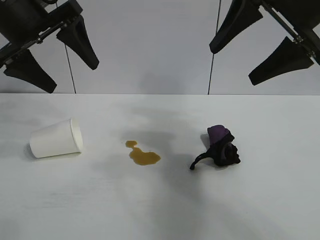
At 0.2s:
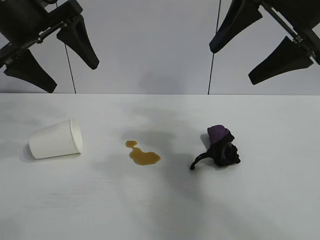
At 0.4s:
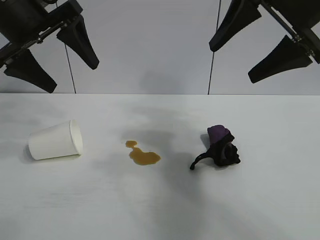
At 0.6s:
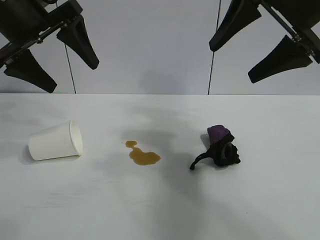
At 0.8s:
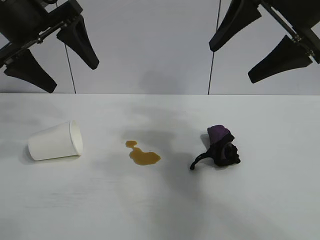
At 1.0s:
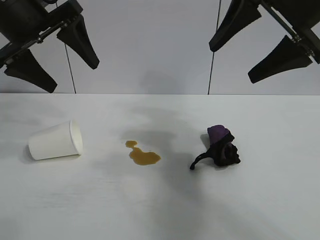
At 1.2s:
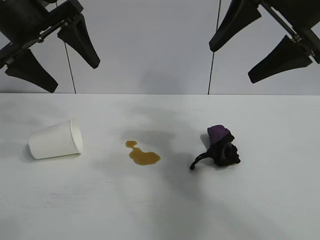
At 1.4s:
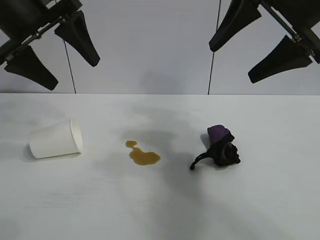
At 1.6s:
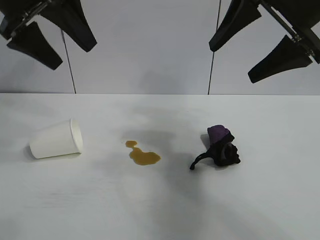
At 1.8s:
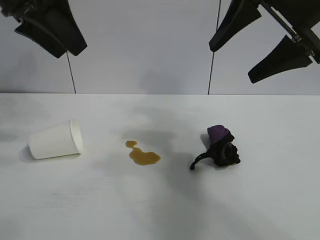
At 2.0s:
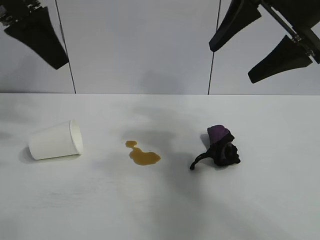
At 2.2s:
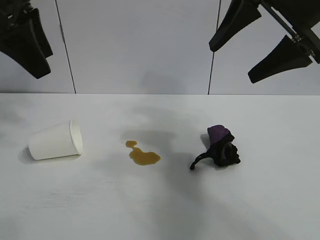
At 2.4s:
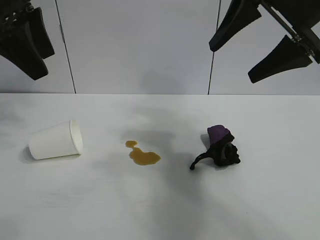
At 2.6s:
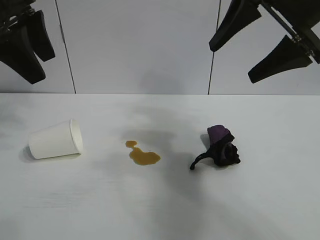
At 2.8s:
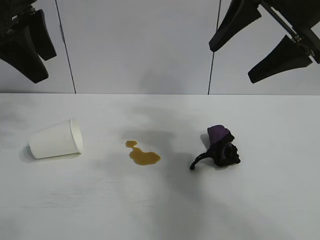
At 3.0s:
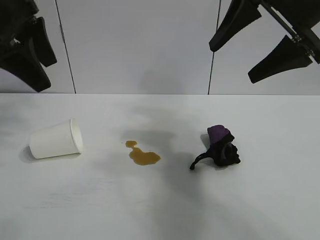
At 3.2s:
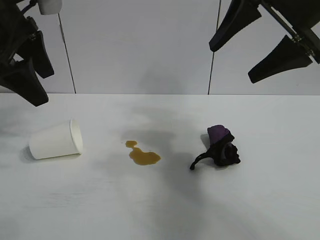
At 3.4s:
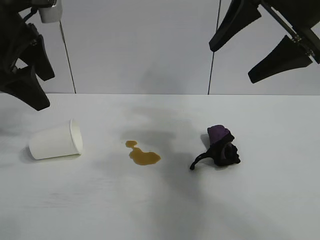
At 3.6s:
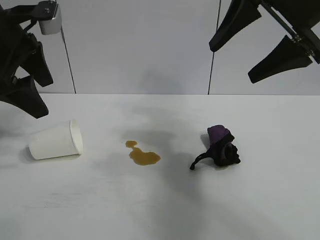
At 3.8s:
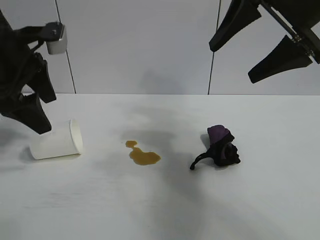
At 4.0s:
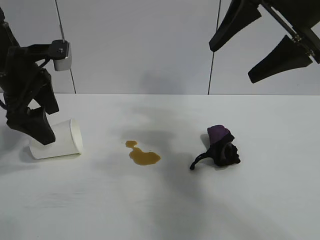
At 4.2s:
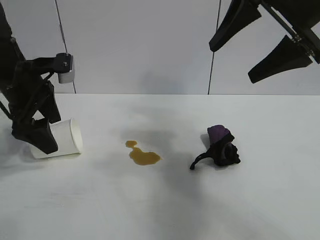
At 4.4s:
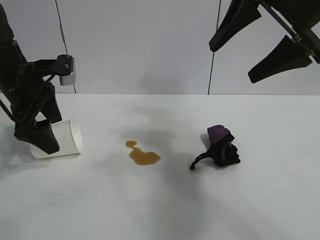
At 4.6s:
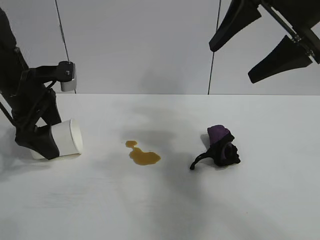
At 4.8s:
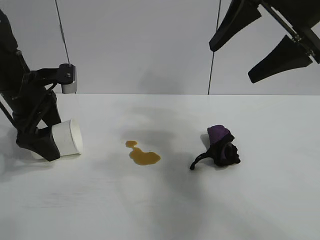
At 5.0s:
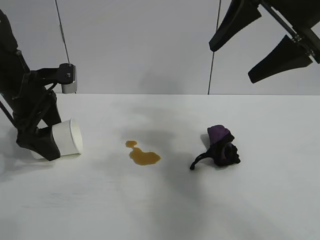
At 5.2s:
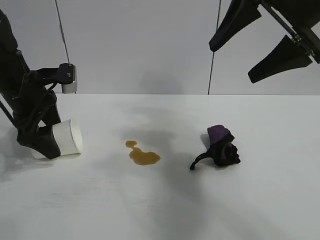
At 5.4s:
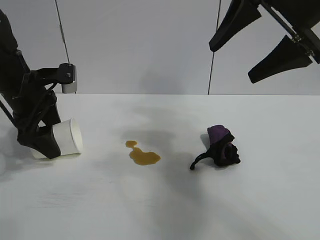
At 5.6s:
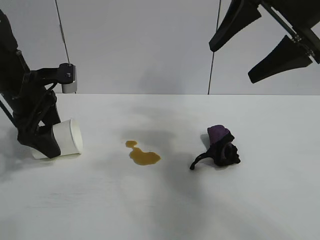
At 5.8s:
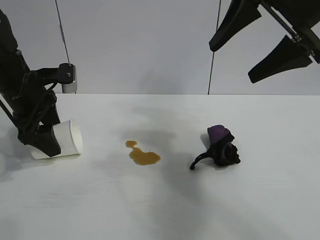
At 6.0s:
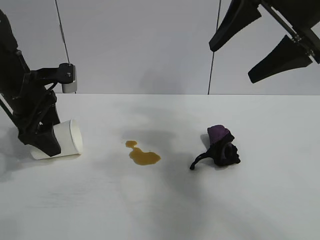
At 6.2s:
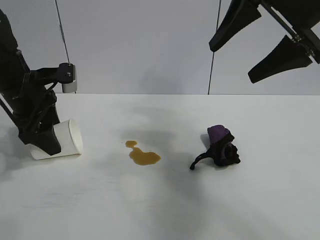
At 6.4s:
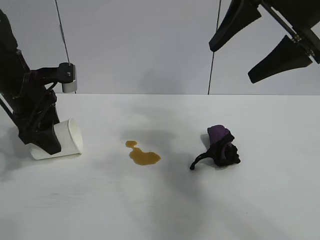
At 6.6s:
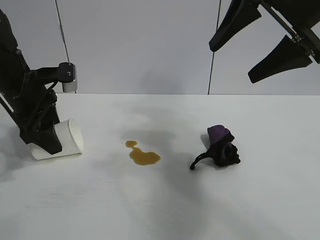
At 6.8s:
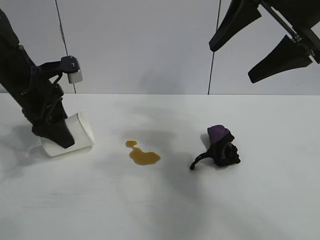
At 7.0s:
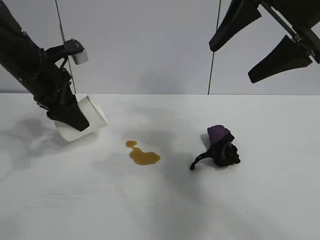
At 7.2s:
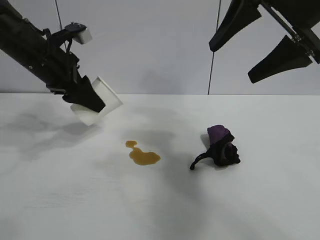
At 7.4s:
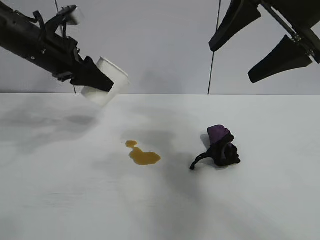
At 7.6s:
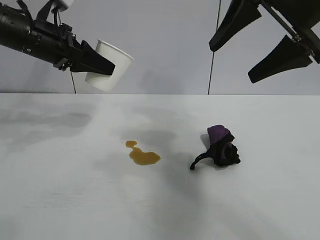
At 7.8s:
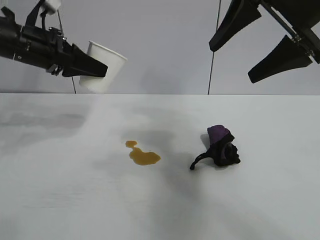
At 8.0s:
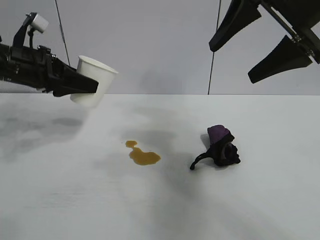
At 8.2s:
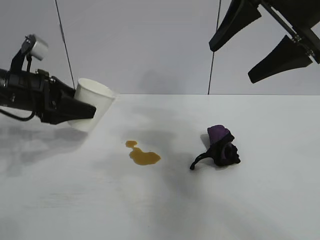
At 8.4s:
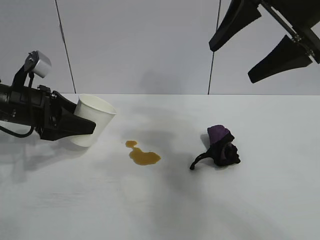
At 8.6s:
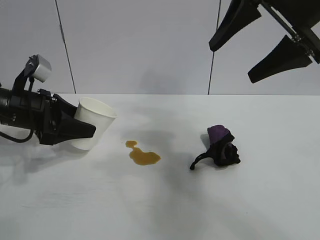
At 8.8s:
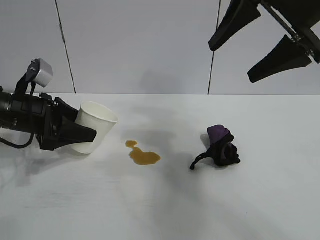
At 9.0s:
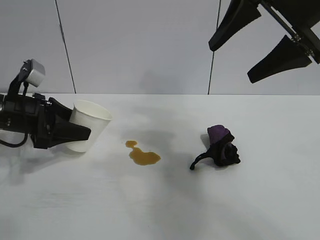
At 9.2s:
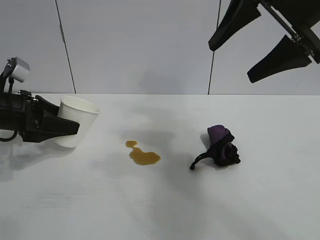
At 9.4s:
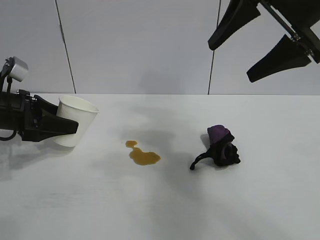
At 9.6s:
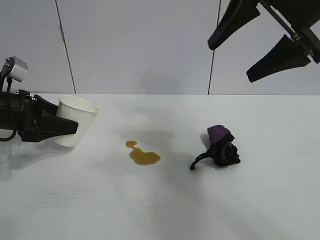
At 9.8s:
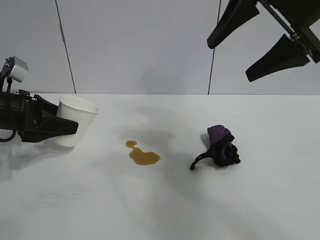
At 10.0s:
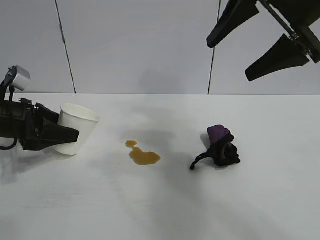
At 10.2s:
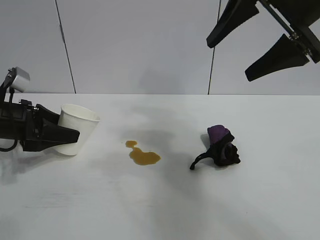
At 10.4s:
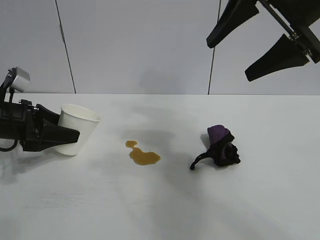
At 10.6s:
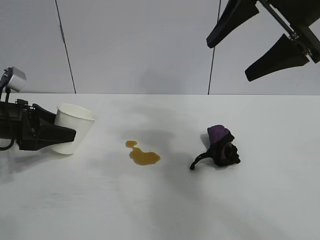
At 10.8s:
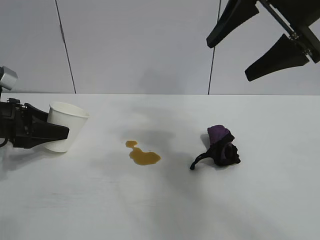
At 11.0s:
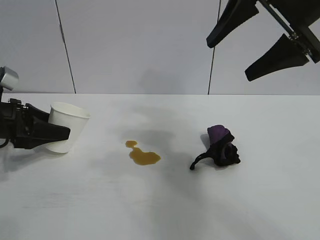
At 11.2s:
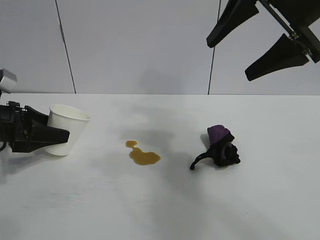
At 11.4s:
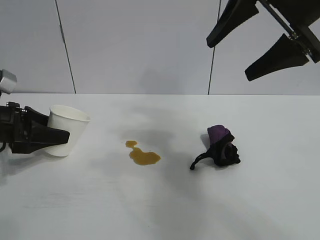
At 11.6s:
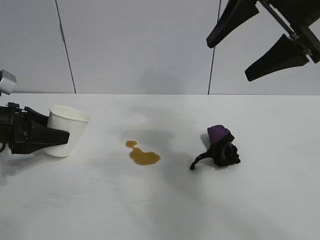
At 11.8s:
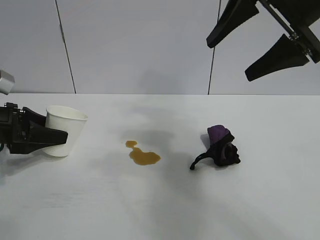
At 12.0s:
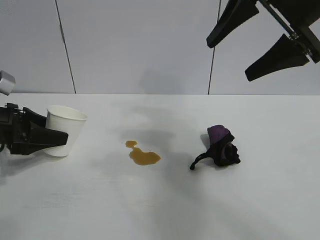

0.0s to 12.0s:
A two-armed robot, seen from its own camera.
Task of the whole recording: the left gripper pick up the fallen cup and place it upright, the right gripper grasp the black rag and wipe the stain on the table, the right gripper put the black rag back in its original position.
Step, 1.0s to 6.4s: Grasp the paper cup with left gripper.

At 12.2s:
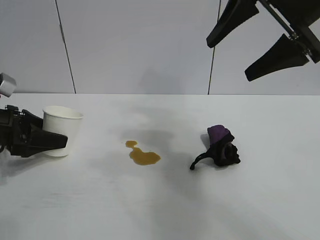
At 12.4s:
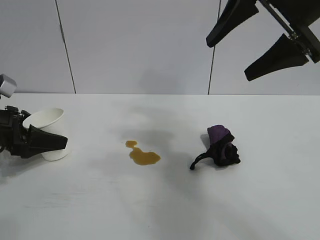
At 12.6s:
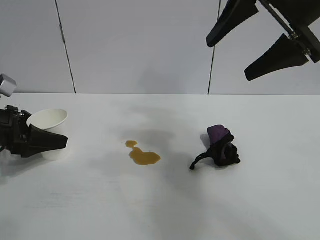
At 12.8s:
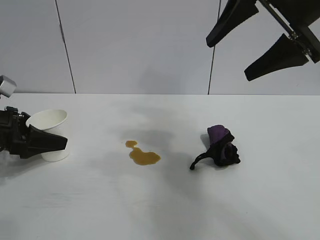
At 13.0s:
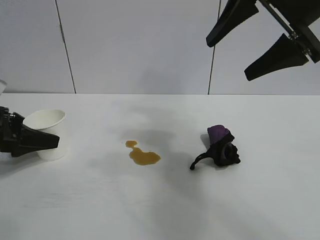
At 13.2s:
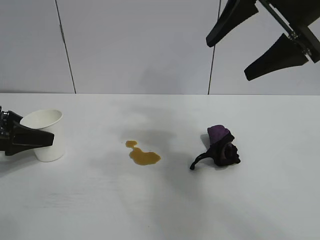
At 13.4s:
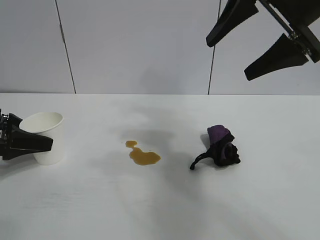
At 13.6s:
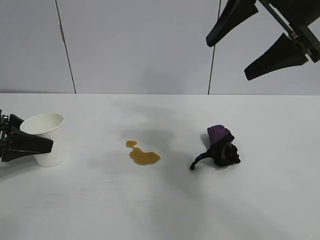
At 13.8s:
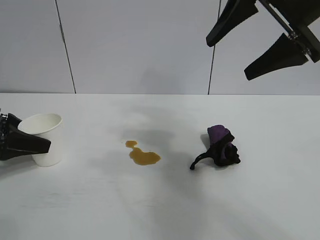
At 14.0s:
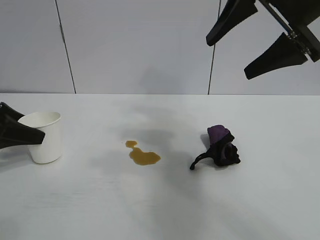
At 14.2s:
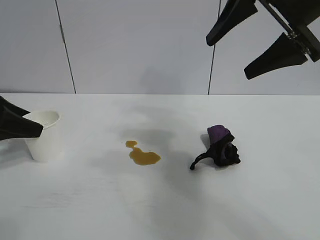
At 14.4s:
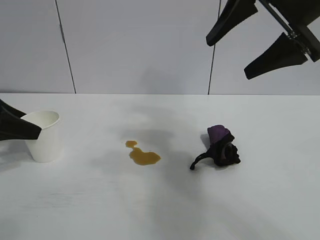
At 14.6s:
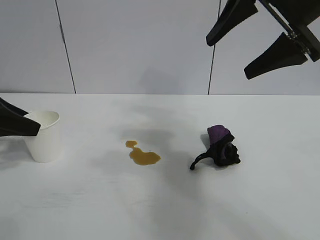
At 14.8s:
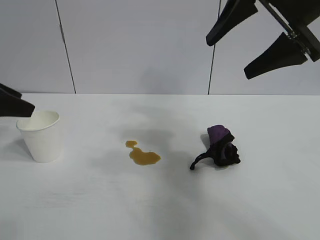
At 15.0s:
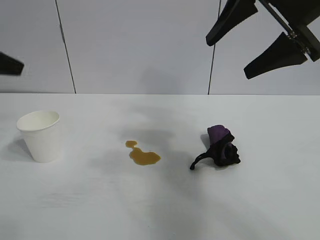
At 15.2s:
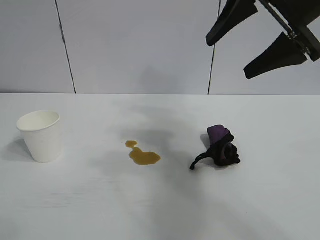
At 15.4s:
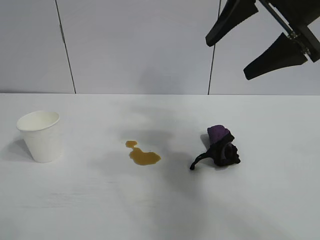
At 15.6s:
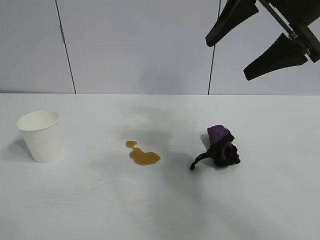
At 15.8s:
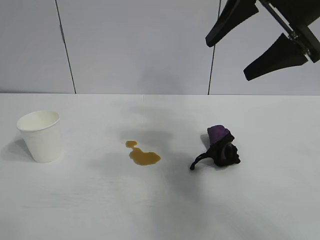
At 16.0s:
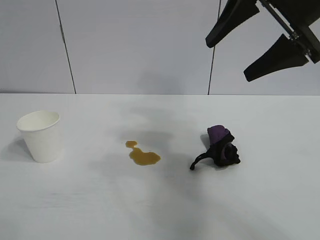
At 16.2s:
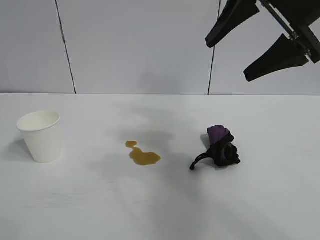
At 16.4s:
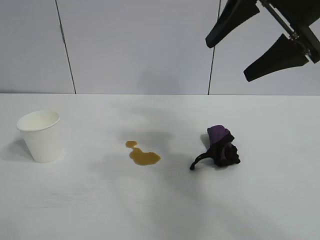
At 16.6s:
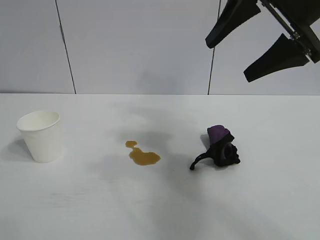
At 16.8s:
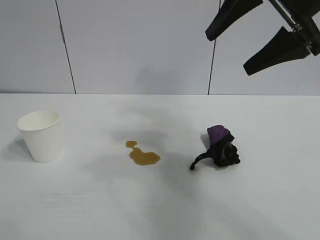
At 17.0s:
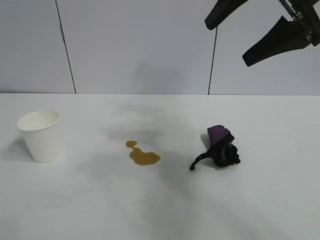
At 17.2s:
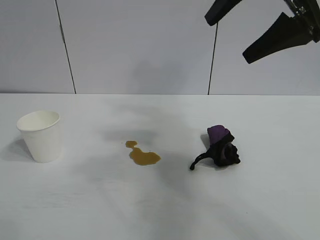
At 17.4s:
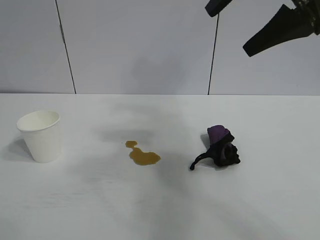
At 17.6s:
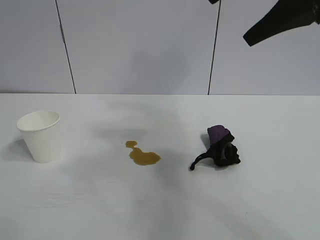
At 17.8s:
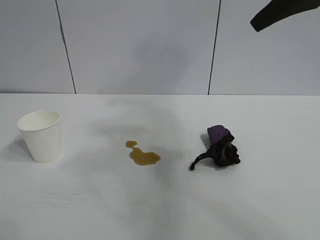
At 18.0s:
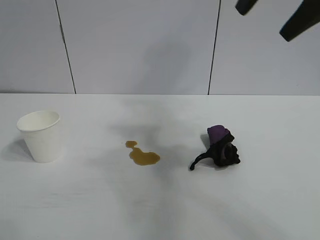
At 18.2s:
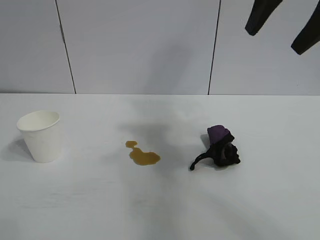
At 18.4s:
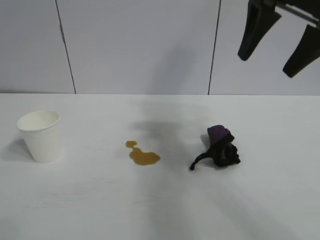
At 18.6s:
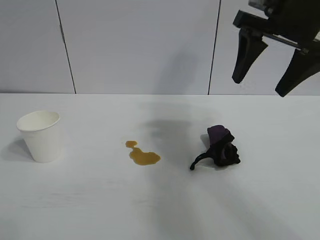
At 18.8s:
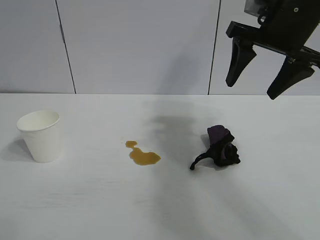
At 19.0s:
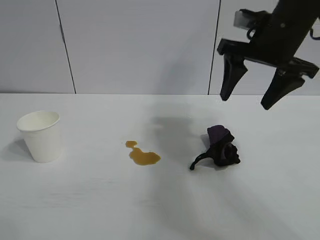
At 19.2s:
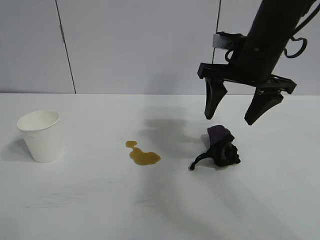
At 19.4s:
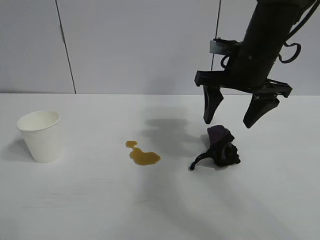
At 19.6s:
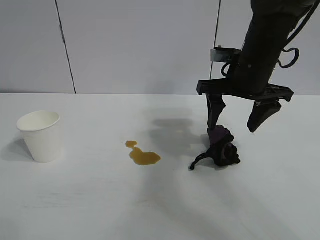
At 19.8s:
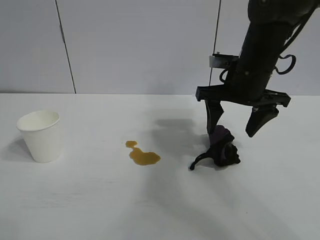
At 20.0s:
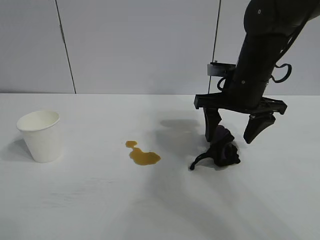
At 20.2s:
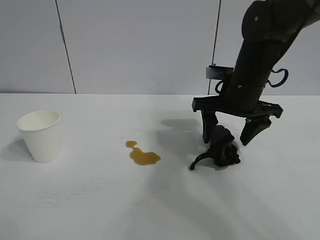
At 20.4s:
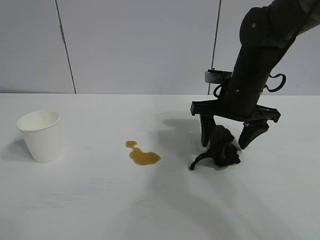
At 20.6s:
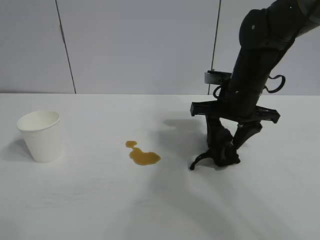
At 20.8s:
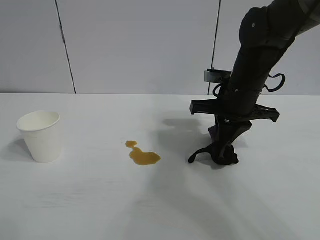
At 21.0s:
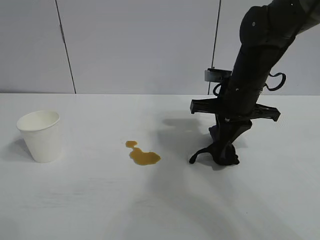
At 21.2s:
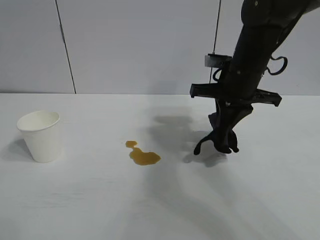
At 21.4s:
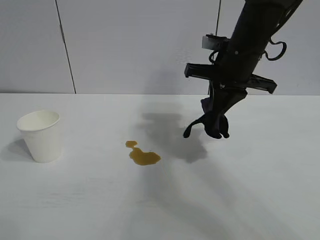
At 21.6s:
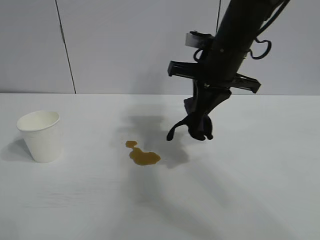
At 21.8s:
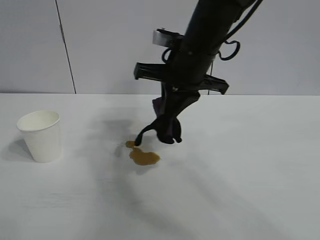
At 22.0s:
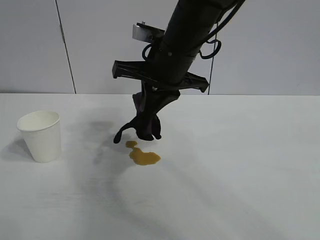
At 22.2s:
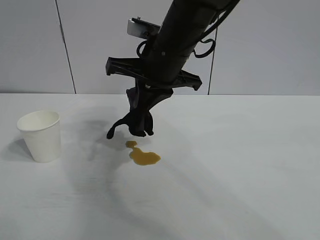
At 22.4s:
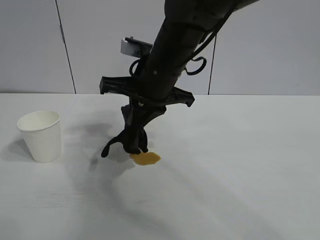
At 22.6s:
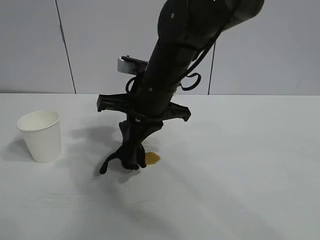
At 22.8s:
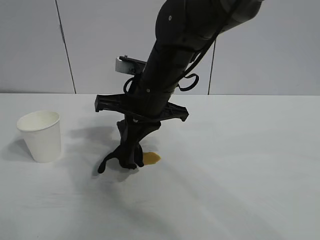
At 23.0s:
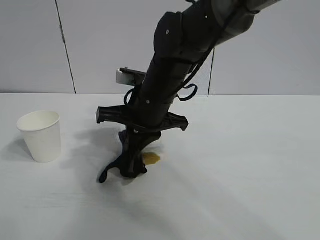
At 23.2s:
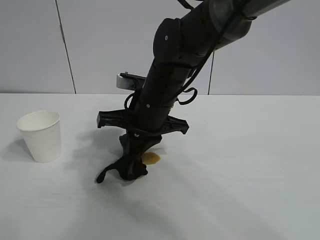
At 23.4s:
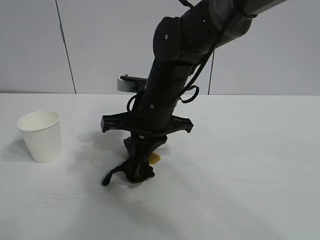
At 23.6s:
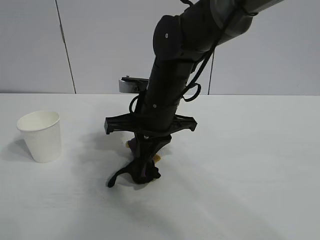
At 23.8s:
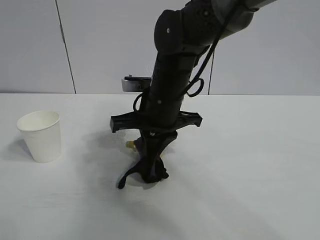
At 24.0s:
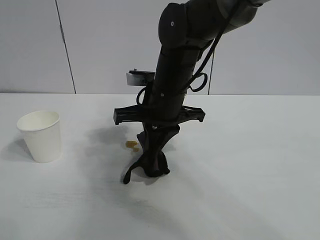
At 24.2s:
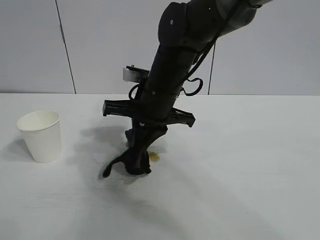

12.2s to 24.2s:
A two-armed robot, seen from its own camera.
Task of the whole recording: the left gripper pick up the fallen cup and place it upright, the right gripper grasp the black rag and wipe the stain on the table, the right gripper put the black rag back in its original position.
Step, 14.4s to 20.8s: Grasp the rag with right gripper.
